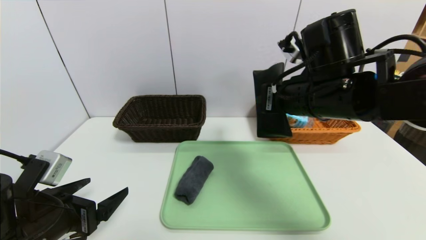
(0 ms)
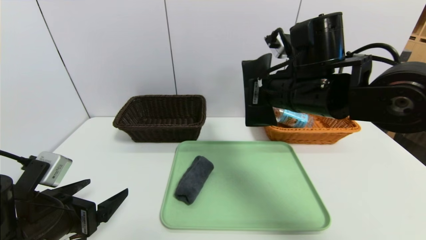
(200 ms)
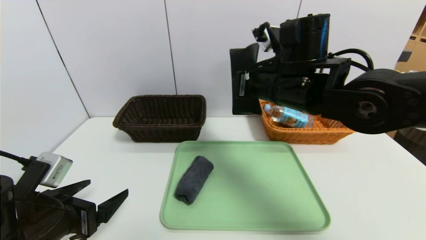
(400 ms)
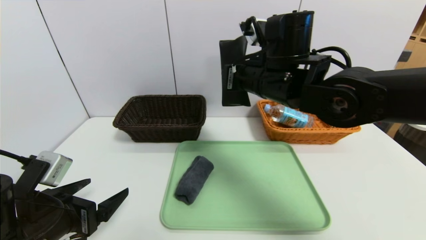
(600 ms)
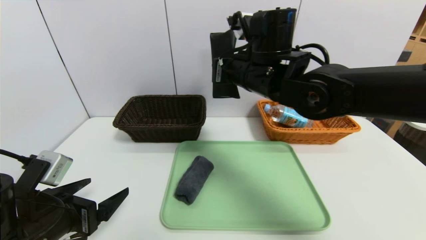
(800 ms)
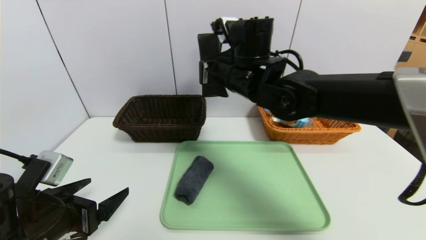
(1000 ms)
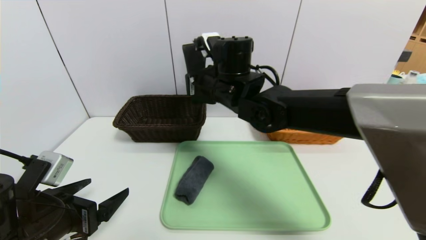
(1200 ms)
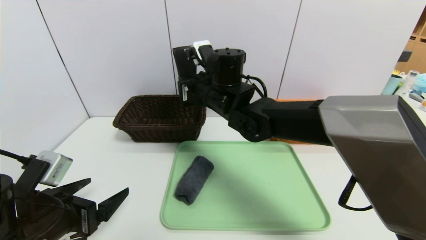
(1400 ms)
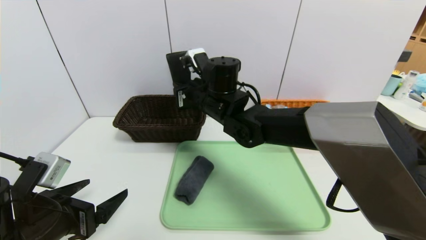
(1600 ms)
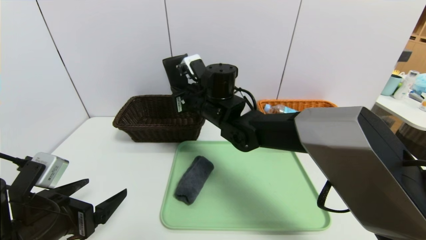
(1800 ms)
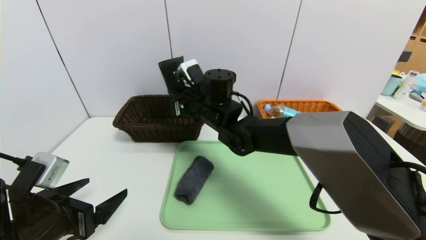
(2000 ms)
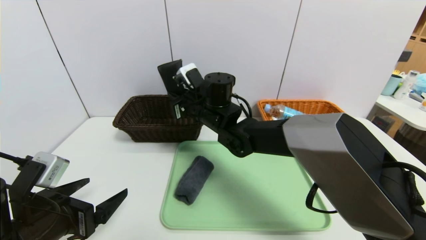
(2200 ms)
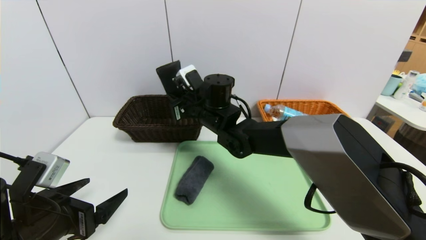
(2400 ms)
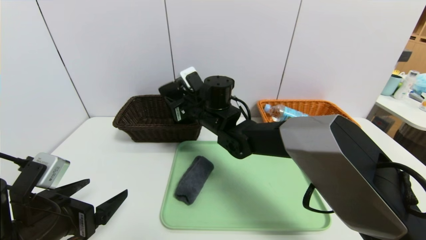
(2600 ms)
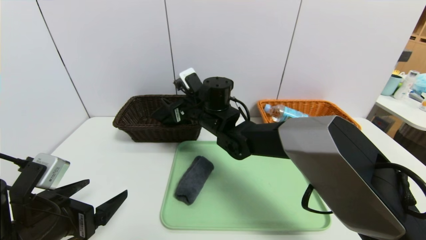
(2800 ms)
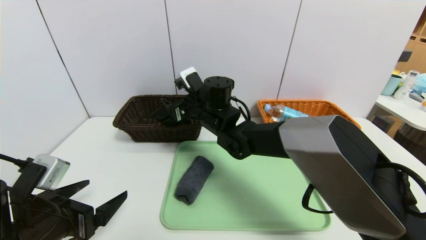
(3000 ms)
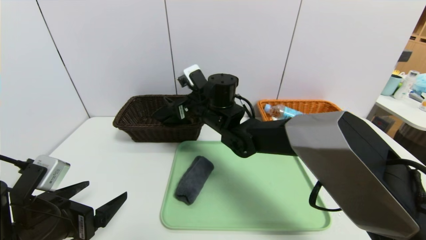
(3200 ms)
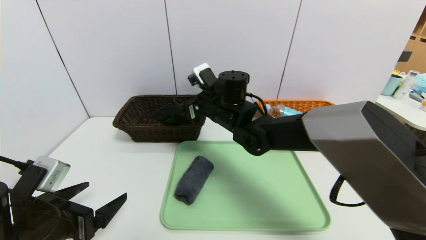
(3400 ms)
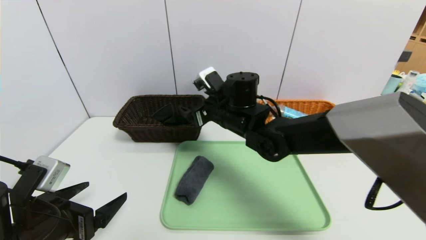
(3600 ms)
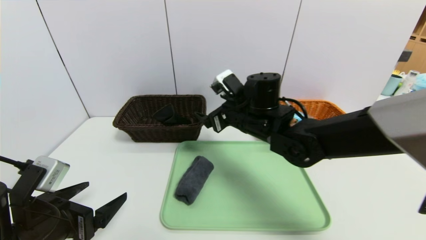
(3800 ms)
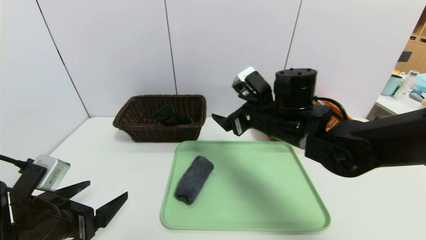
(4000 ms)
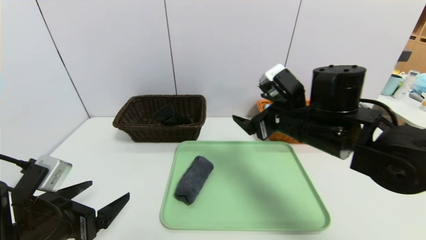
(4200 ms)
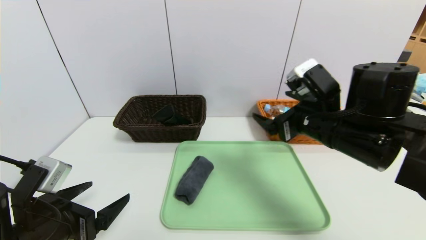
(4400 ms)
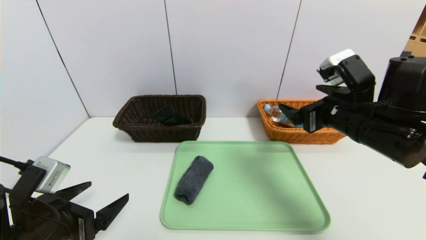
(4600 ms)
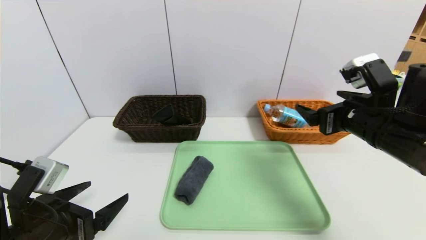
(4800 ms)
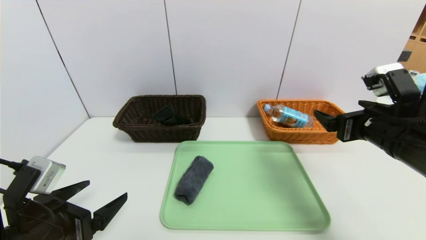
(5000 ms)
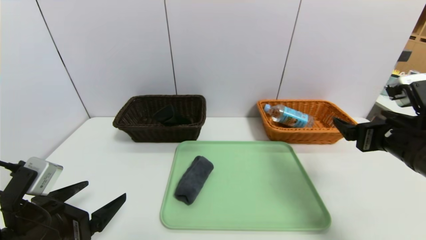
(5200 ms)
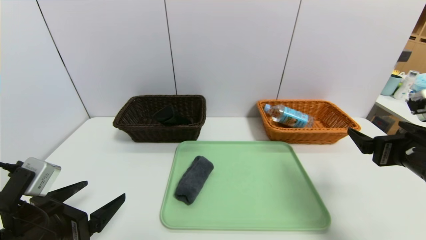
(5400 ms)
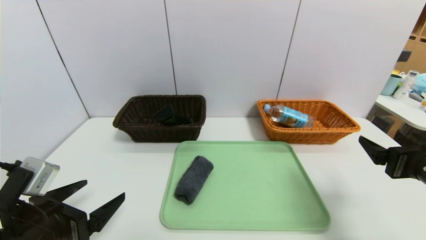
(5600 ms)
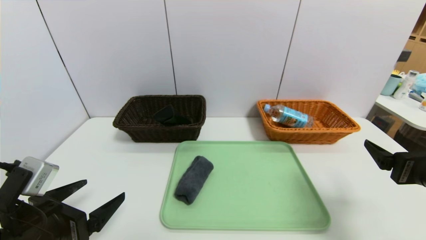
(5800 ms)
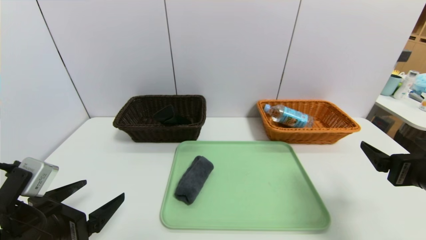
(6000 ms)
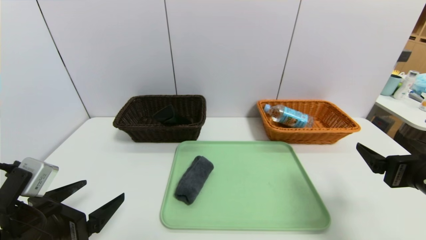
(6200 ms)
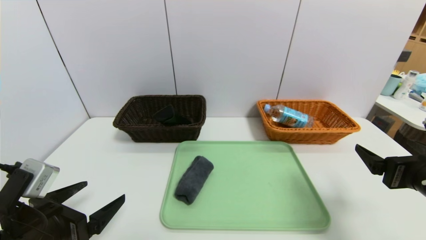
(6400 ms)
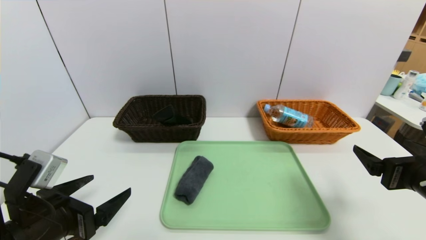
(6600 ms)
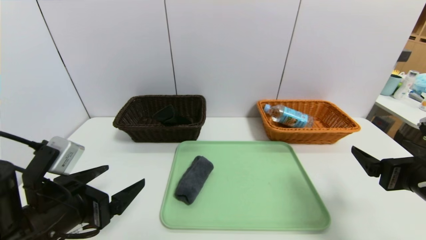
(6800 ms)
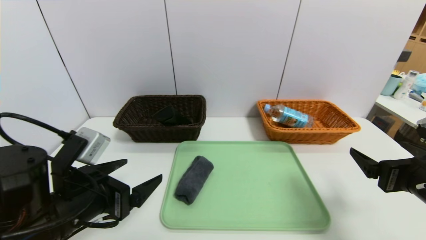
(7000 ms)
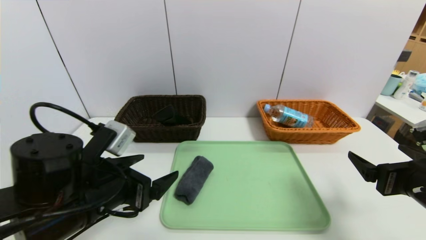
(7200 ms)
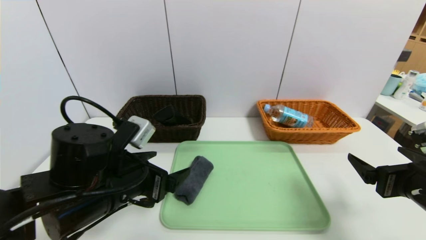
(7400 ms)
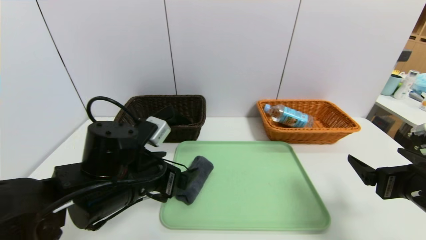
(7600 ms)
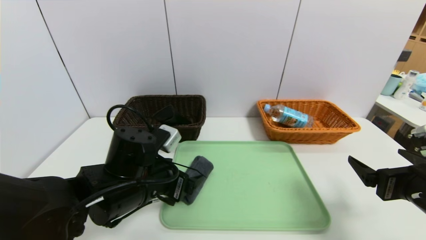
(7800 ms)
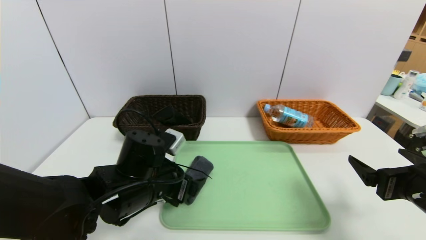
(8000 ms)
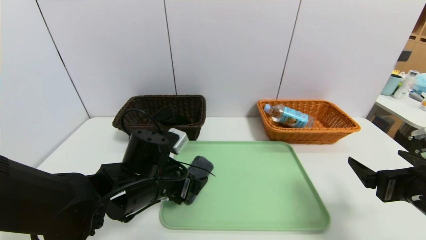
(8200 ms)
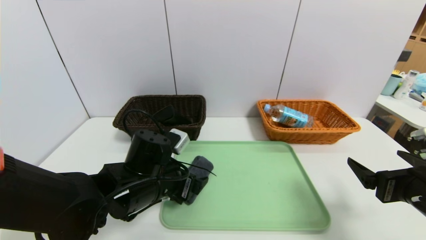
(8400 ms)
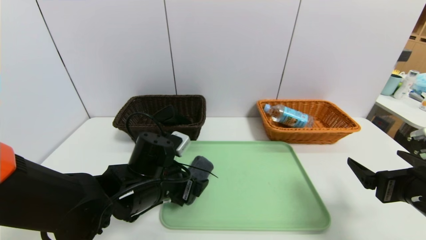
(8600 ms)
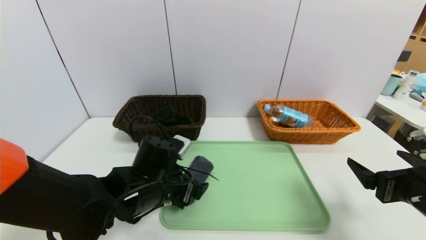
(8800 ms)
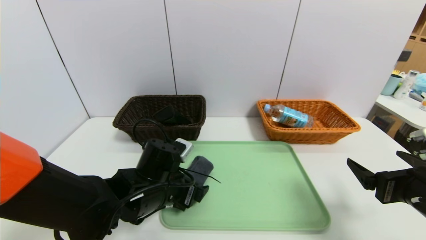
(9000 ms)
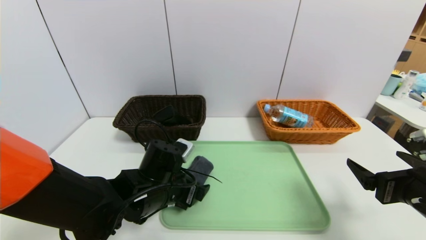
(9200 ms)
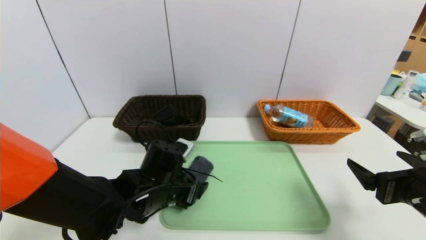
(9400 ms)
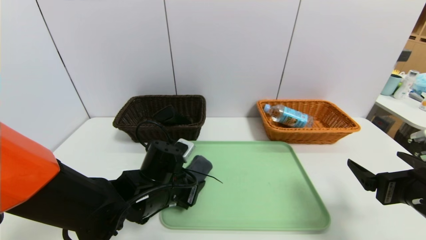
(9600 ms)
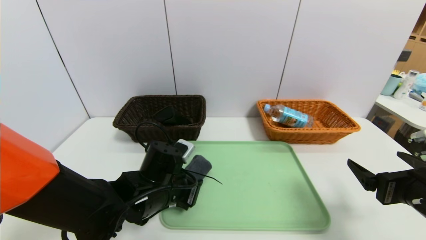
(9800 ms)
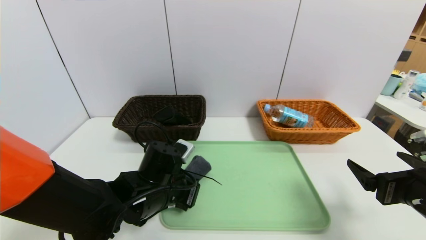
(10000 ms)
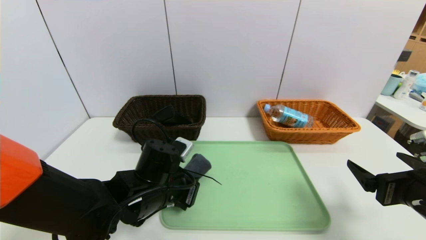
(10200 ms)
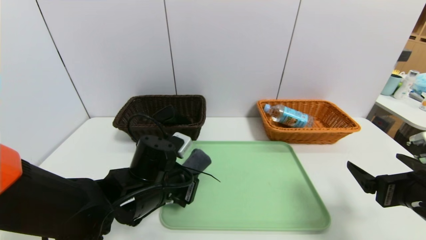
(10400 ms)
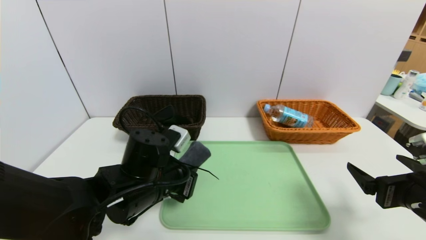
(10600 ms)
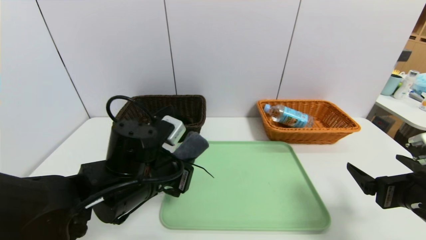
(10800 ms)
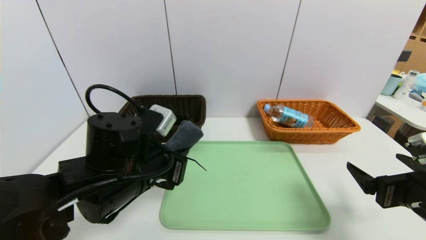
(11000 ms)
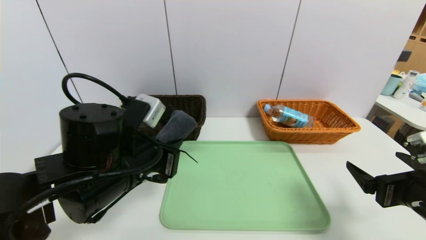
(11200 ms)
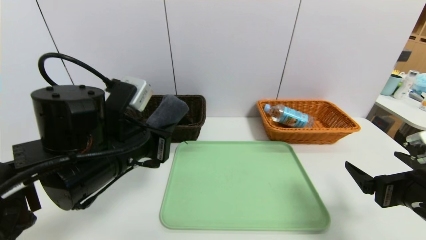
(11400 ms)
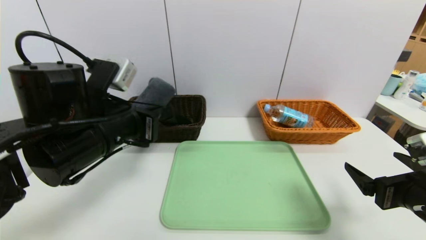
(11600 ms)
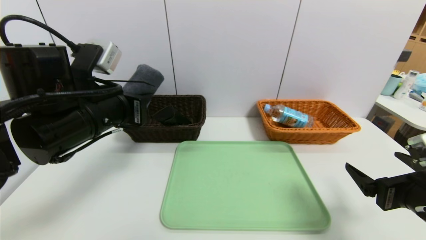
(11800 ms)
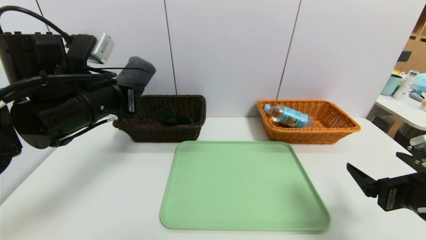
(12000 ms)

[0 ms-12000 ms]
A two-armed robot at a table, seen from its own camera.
Task of the whole recording: place the food in the right basket with the right gripper, and place the non food items in the left basket with the left gripper.
0 ms to 1600 ms: The right gripper is displaced to the left and forward by approximately 20 cm.
1600 ms to 3000 ms: The right gripper opens up.
3000 ms to 4400 ms: The right gripper heads to the right and backward, covering roughly 25 cm.
4400 ms to 6000 ms: The right gripper heads to the right and backward, covering approximately 15 cm.
6000 ms to 7600 ms: The left gripper moves to the right and forward, some 15 cm.
7600 ms to 9000 ms: The left gripper heads downward, covering roughly 5 cm.
9000 ms to 10400 ms: The left gripper closes.
10400 ms to 12000 ms: The left gripper moves upward and to the left, roughly 20 cm.

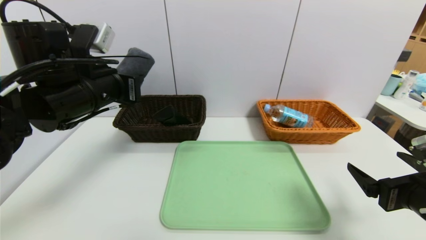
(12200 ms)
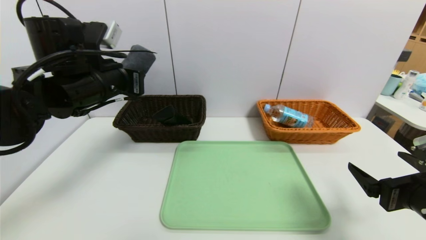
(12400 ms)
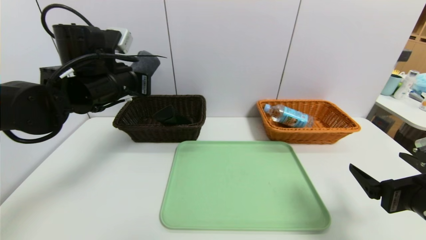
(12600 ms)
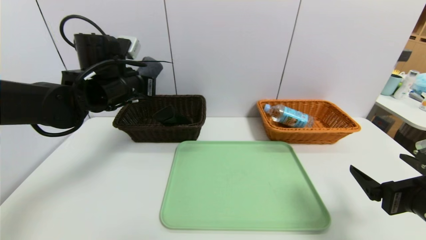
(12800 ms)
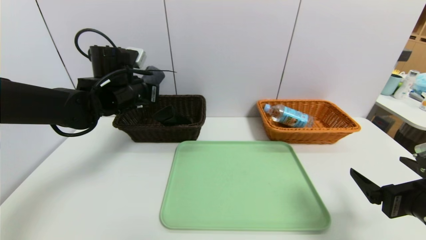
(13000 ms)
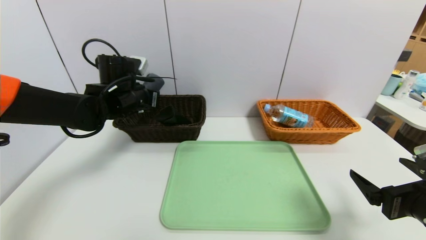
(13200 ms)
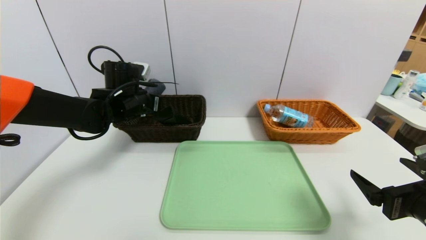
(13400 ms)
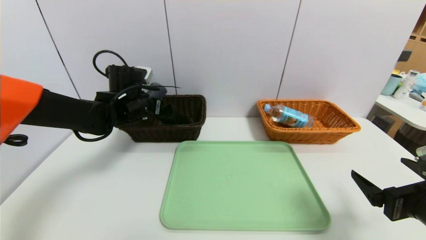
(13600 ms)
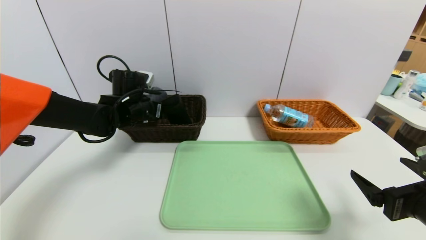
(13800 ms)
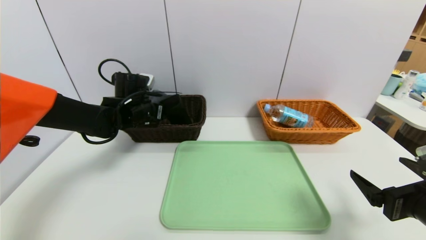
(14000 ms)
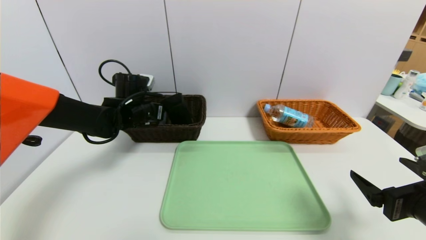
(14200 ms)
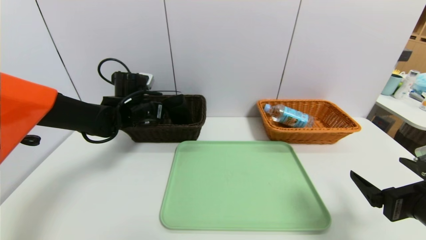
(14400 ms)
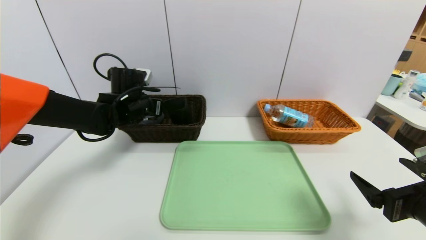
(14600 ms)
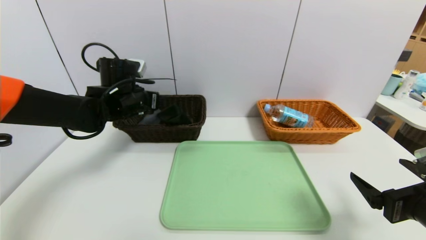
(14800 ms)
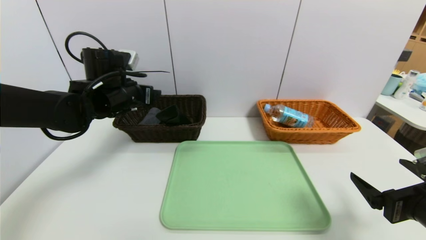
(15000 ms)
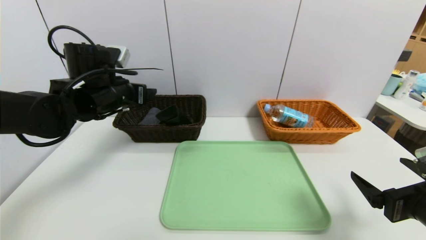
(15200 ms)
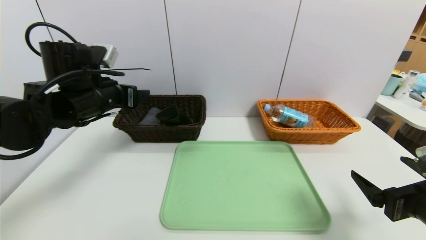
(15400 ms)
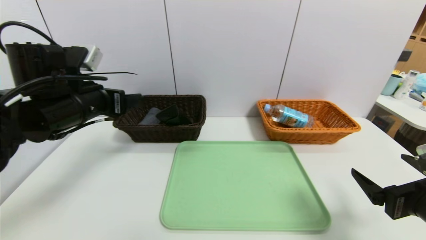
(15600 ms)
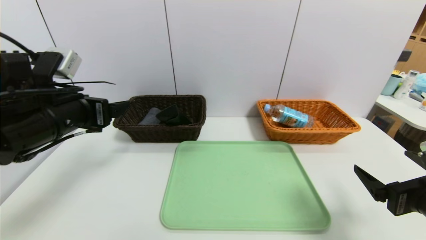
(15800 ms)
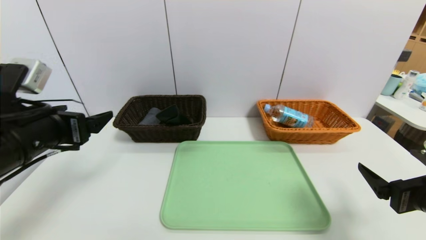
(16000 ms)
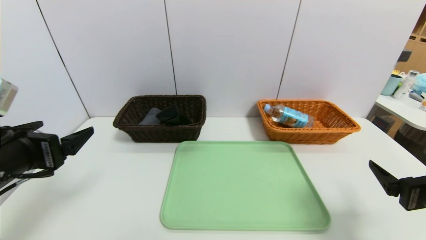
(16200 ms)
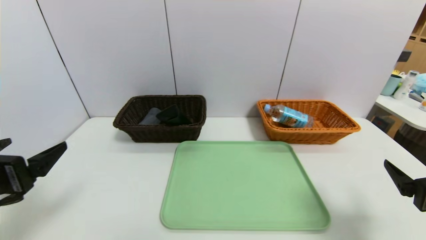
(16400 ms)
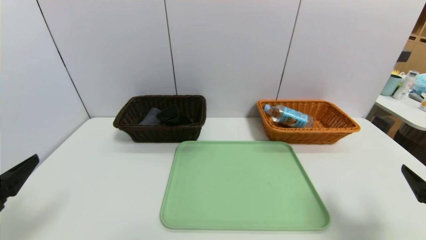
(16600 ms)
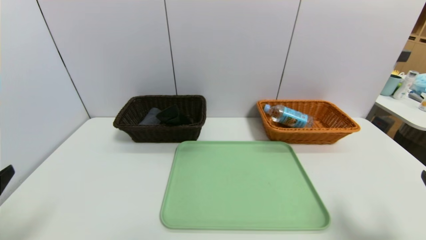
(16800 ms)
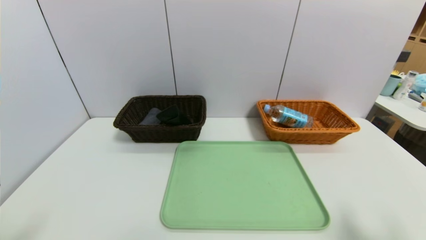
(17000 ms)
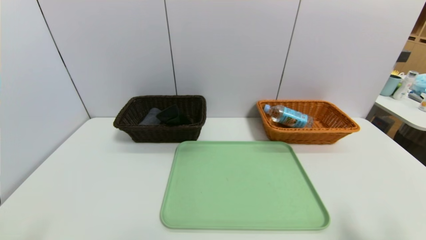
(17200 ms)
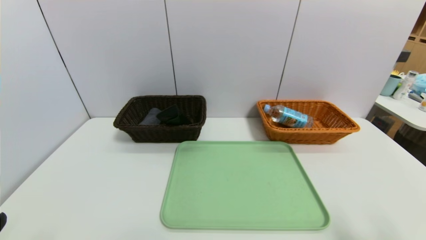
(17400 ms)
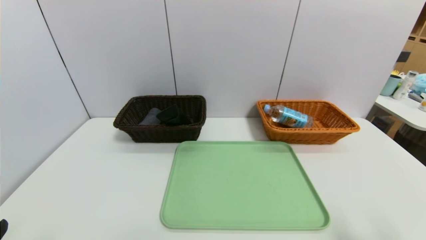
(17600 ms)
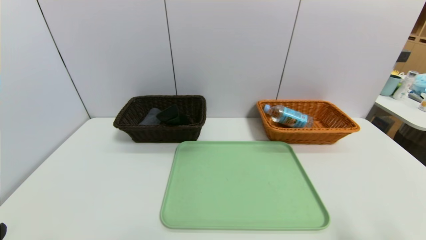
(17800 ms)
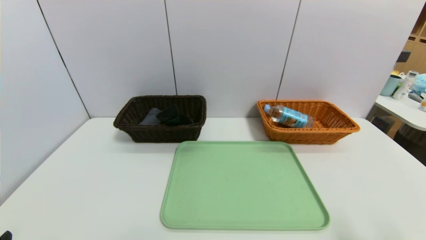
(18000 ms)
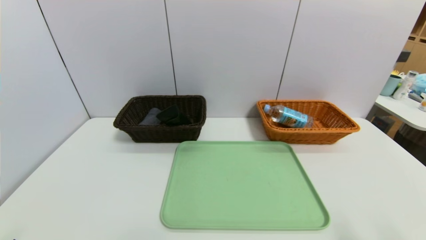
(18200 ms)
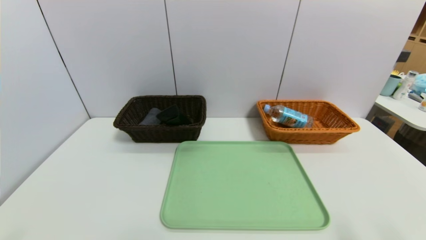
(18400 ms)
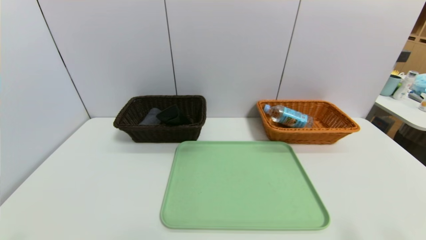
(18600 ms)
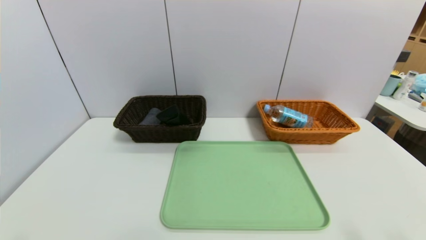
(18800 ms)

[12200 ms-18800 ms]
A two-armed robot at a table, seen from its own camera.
Task of the whole recording: place the food in the right basket with the right gripper, and place the non food items in the left basket with the left gripper.
Step, 12200 ms to 14400 ms: Grasp the grey towel and put it in the left basket.
12200 ms to 13800 ms: The left gripper is displaced forward and downward by about 15 cm.
13800 ms to 15400 ms: The left gripper goes some 10 cm backward and upward, and opens its fingers.
15400 ms to 17200 ms: The right gripper goes some 5 cm backward. The left gripper heads backward, covering some 30 cm.
